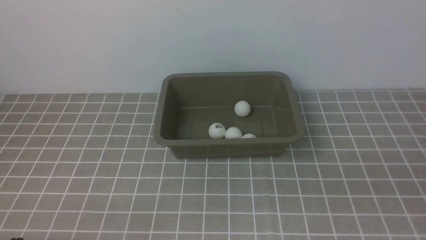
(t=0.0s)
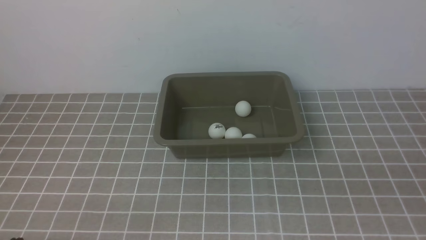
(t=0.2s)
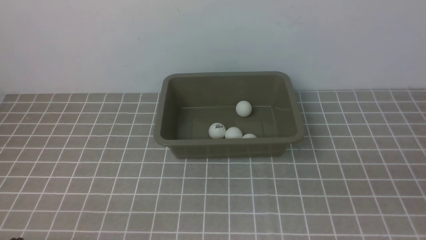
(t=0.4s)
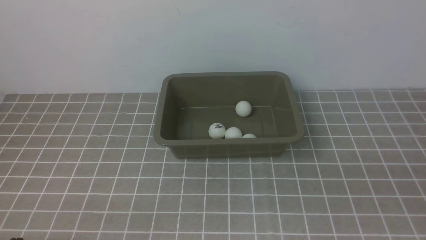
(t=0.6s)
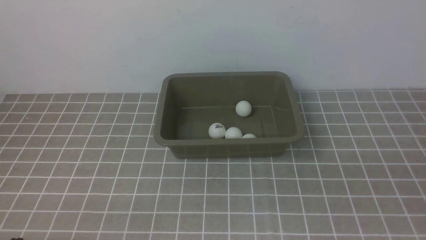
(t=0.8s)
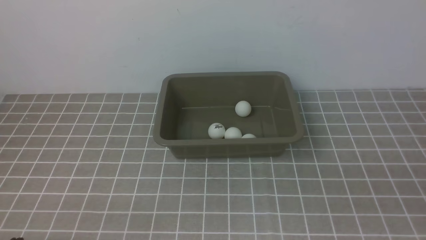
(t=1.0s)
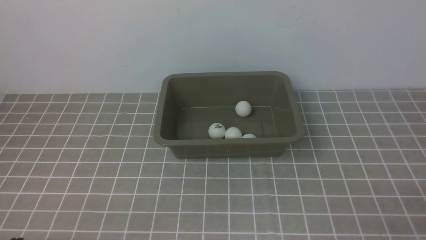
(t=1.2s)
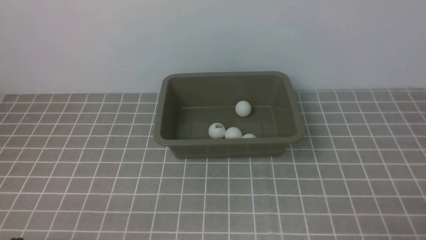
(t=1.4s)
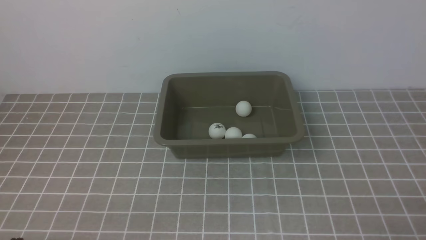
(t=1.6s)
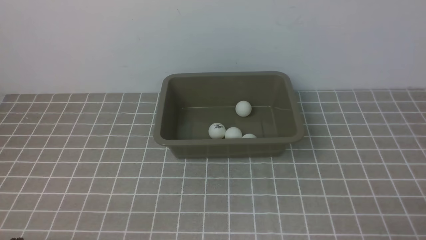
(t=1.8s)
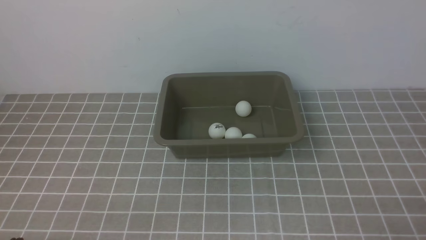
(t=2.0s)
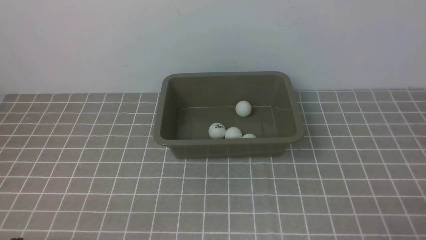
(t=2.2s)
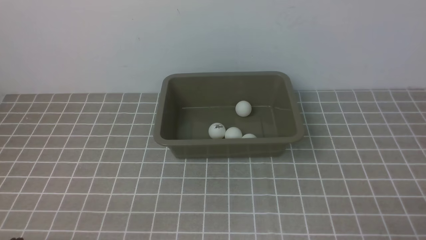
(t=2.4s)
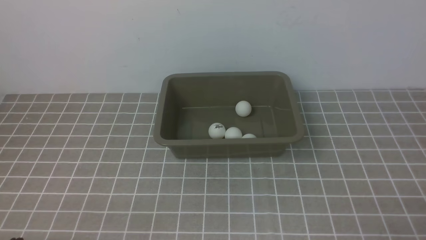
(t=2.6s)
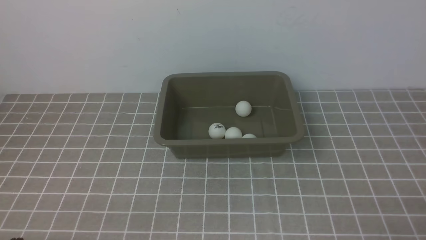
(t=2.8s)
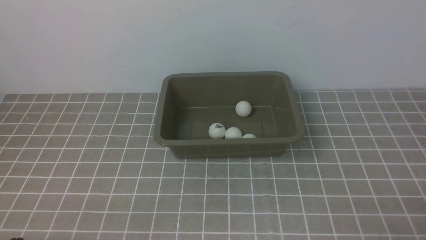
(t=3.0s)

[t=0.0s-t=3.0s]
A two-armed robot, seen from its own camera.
t=1.6s to t=3.0s: Both grippers stay about where they are.
